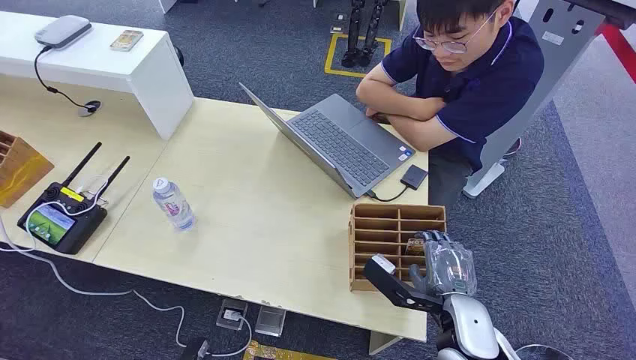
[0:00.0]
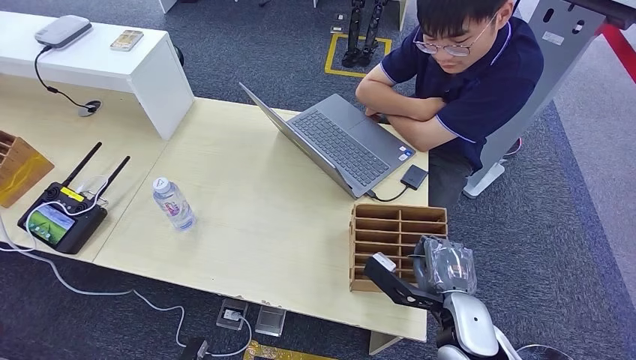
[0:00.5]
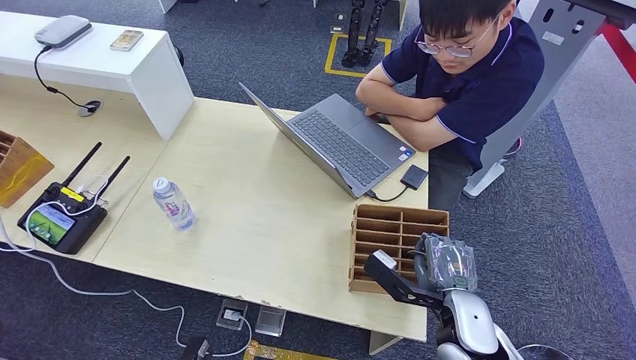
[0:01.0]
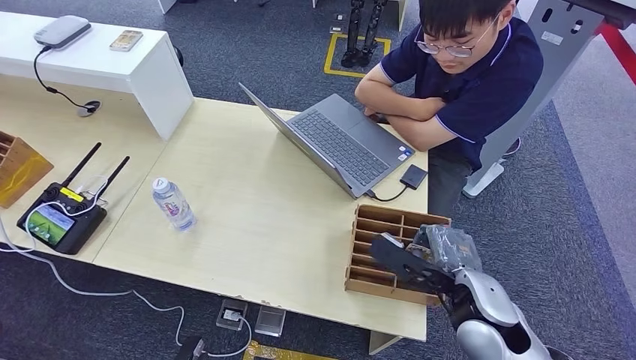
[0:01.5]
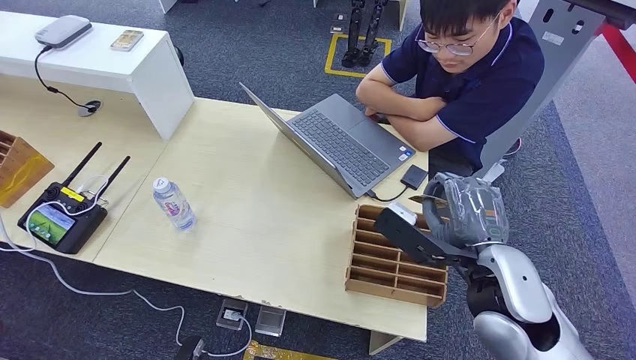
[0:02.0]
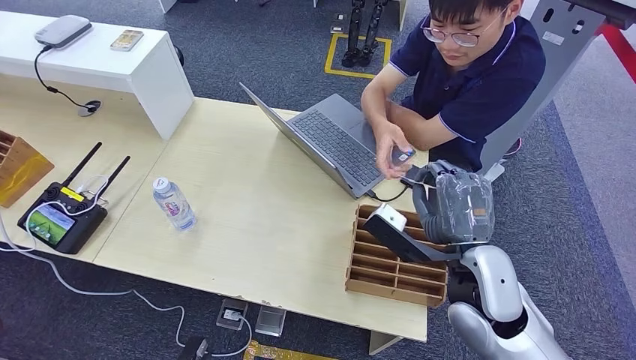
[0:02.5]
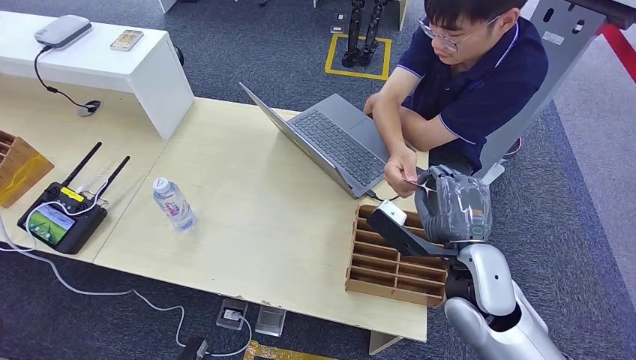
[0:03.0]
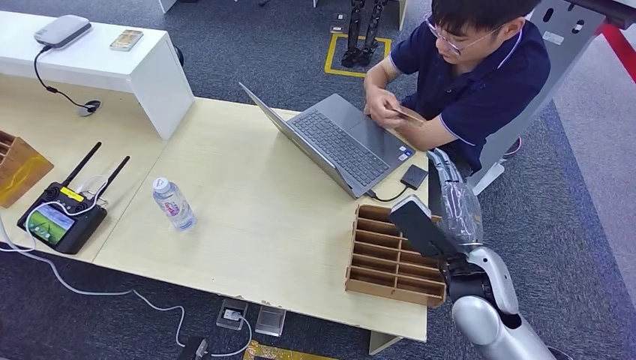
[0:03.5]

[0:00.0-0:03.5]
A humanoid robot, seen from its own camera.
Step, 0:00.0 to 0:02.0: Pick up the key card from the card box.
Step, 0:02.5 to 0:03.5: Hand the key card to the target.
0:02.0 to 0:03.5: The right hand is displaced downward by some 5 cm.

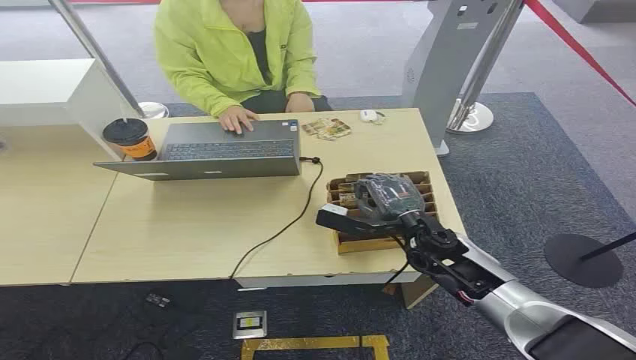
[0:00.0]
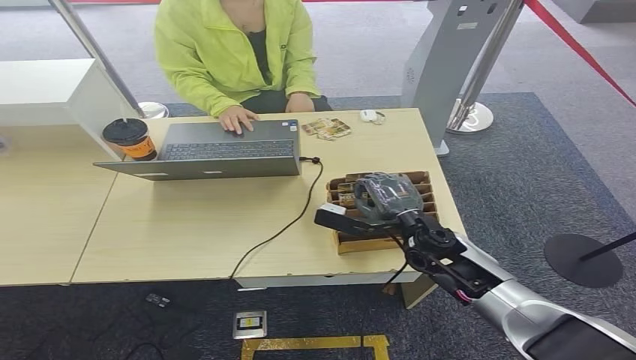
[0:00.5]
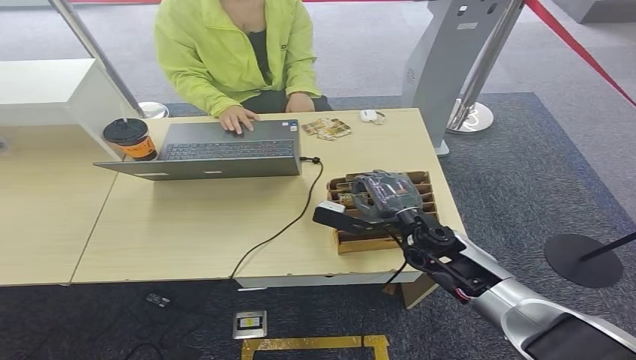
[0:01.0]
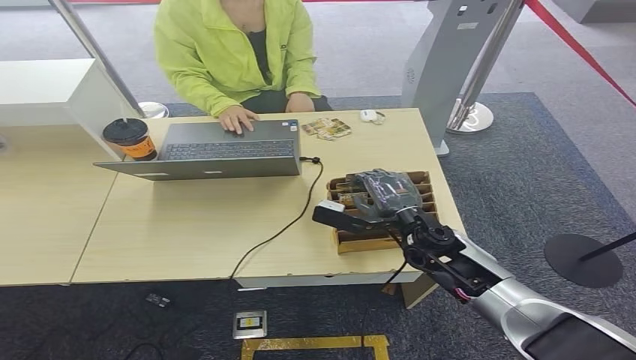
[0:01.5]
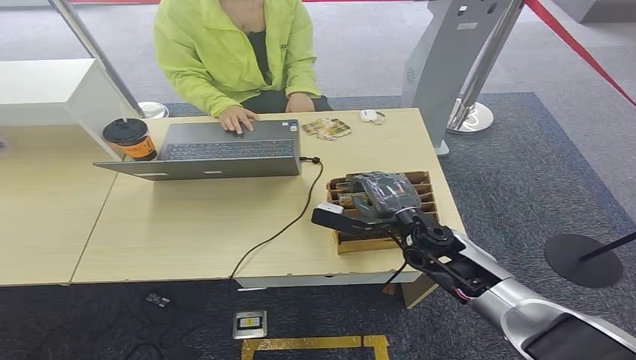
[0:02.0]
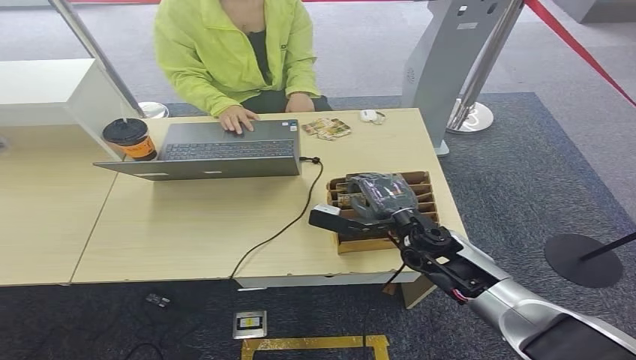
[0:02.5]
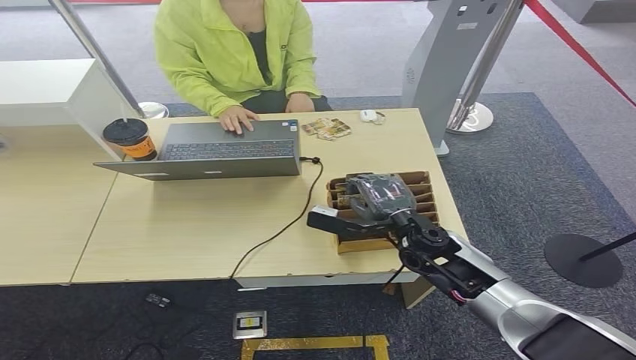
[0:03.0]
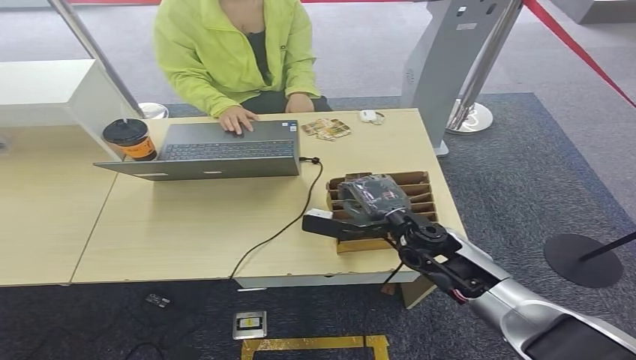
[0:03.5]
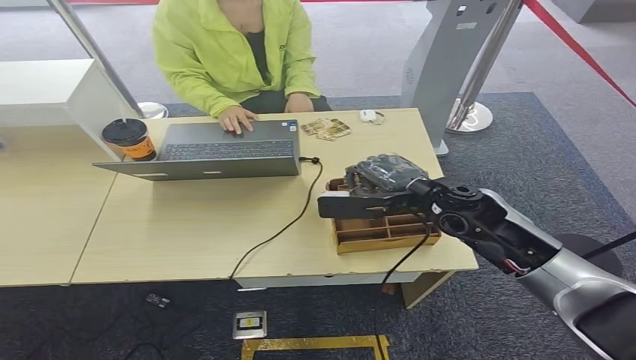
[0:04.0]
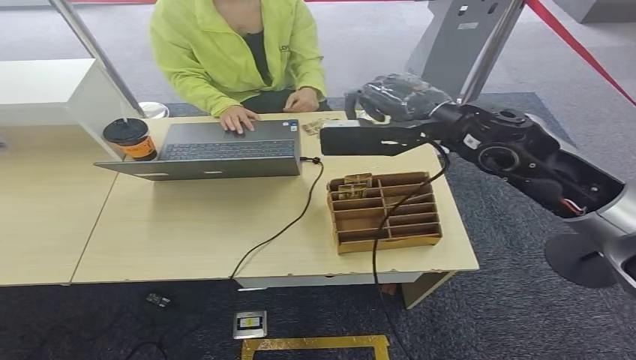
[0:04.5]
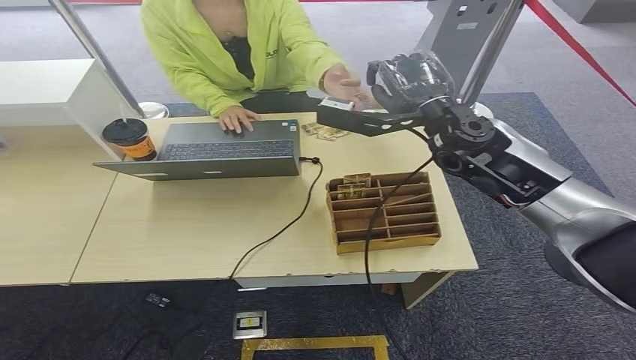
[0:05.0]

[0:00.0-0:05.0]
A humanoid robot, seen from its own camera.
Step, 0:00.0 to 0:03.5: Pick up the key card from the card box.
Step, 0:04.0 to 0:05.0: Hand the key card to the target.
0:02.5 to 0:05.0: The right hand shifts approximately 25 cm upward and forward.
